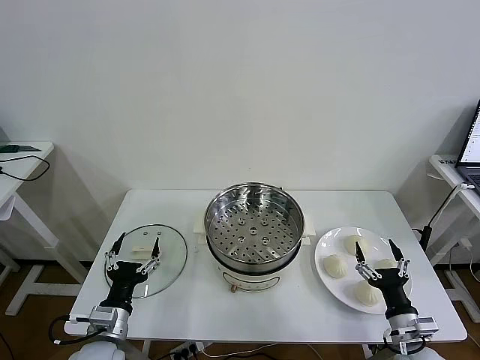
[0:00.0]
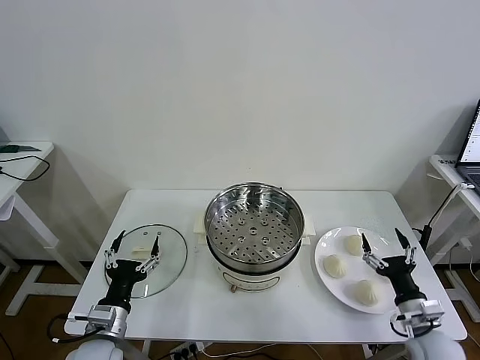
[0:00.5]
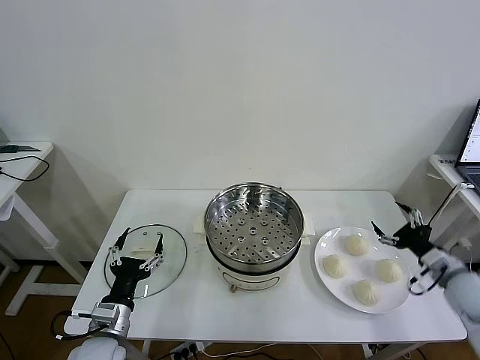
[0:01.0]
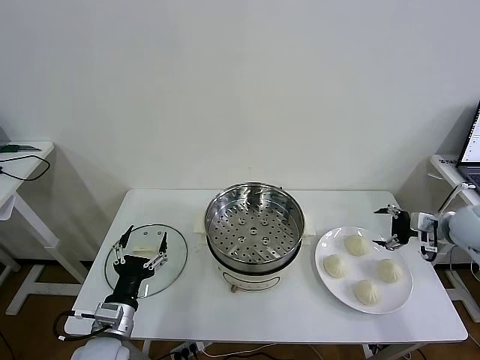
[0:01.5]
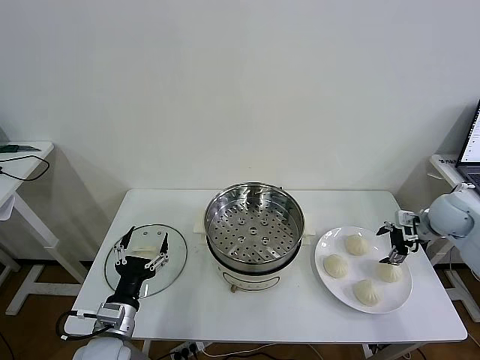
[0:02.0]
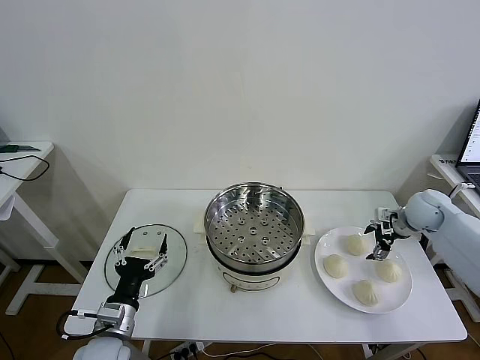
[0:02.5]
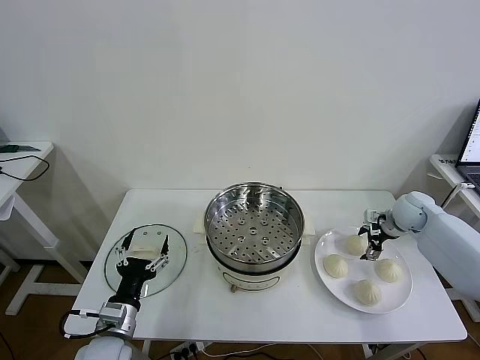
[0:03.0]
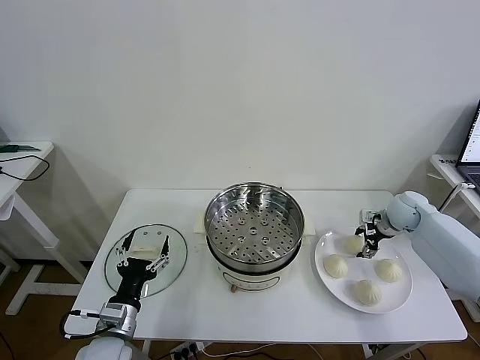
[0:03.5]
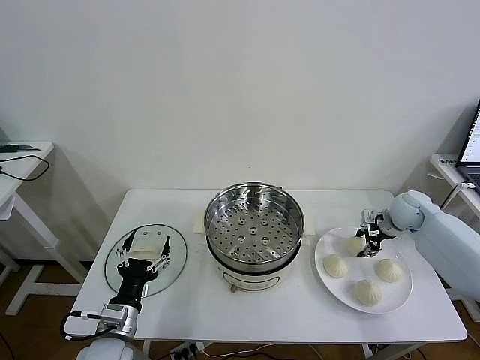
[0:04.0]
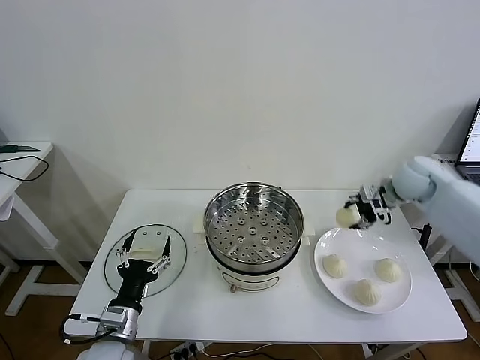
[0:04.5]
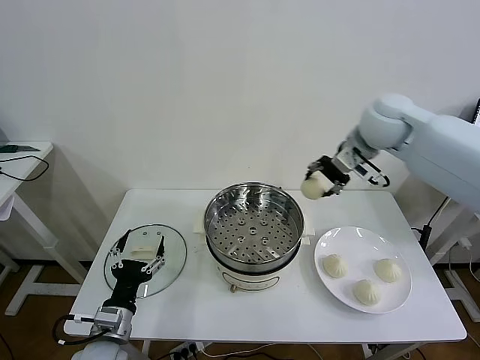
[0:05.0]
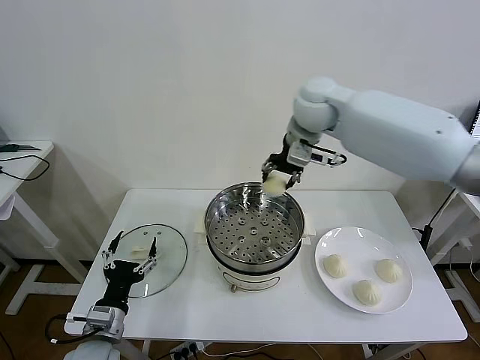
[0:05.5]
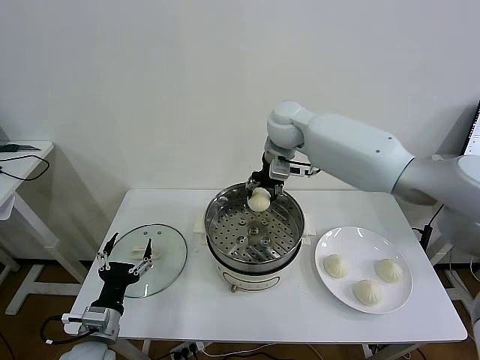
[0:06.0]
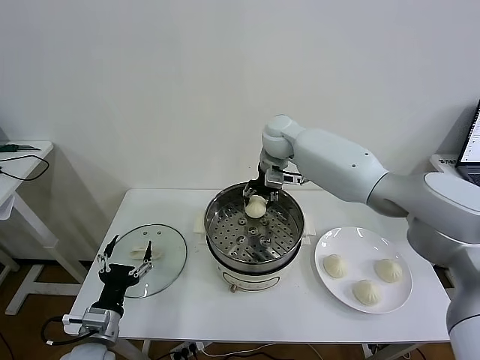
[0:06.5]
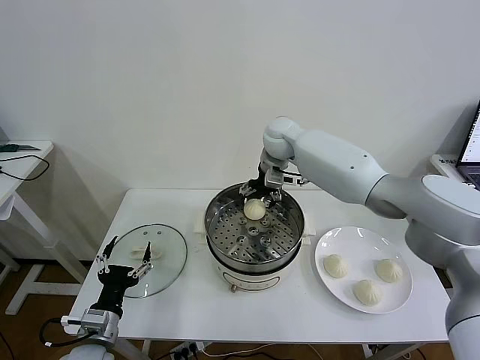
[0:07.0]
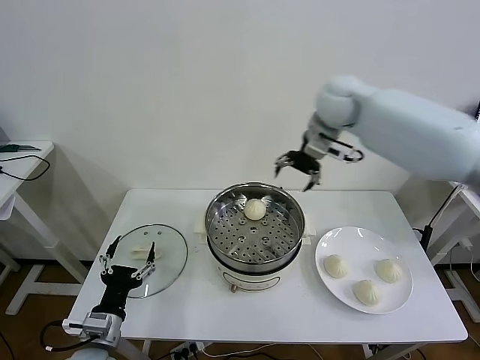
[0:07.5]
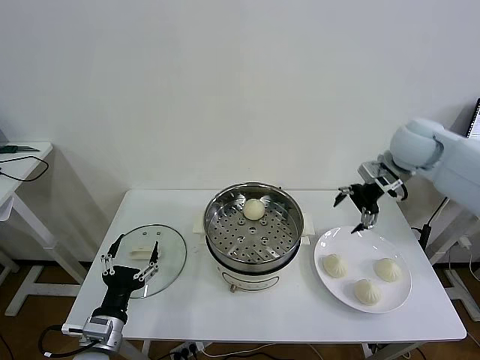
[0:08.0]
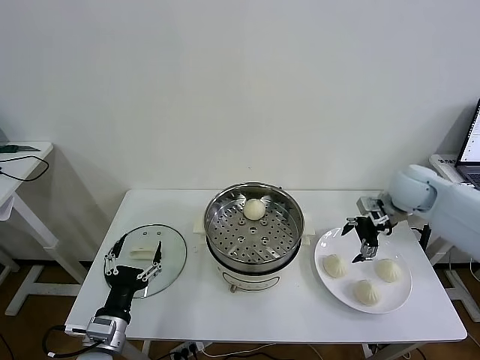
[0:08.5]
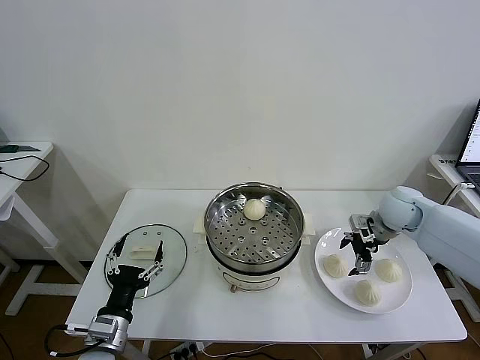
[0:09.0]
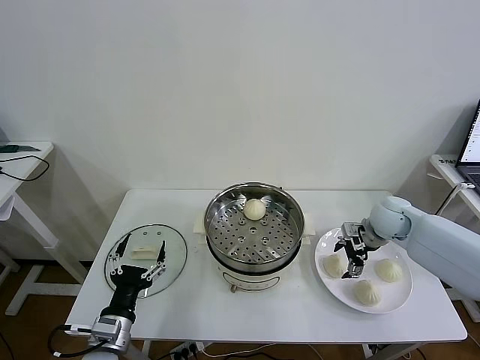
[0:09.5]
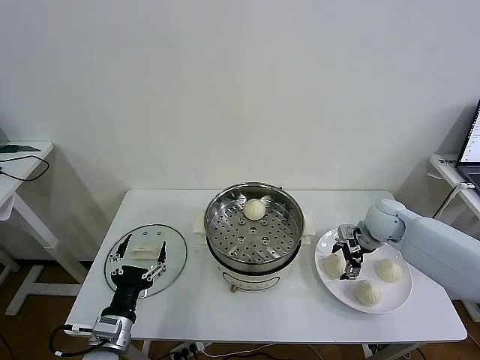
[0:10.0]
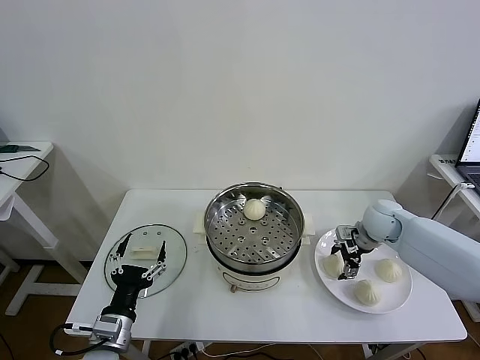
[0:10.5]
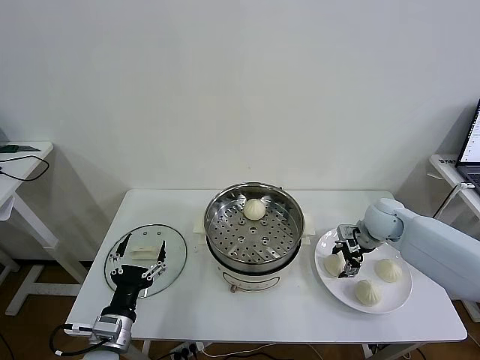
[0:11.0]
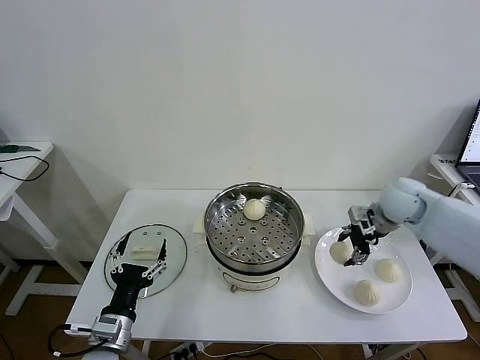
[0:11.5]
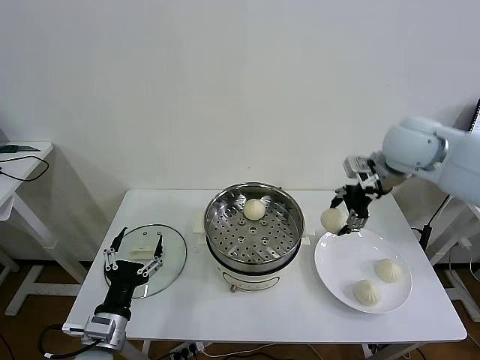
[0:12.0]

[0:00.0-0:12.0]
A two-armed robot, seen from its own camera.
Task of the whole recording: take steamed baozi put them in steamer then cover it.
Step, 0:00.0 to 0:03.5: Grasp the baozi in the plate with right gripper.
Step, 0:04.0 to 0:06.5: Place the baozi on the steamer with right gripper.
Step, 0:07.0 to 0:10.5: Grasp the baozi in the plate with right gripper.
0:02.0 to 0:04.0: The right gripper changes place by about 5 cm, and closes.
0:04.0 to 0:06.0: The right gripper travels to the left and upward by some 35 cm.
0:06.0 to 0:08.0: The right gripper travels to the right by approximately 25 cm, and opens its fingers.
0:08.0 to 0:10.0: The right gripper is displaced downward by about 20 cm.
0:10.0 to 0:12.0: The right gripper goes about 25 cm upward, and closes up.

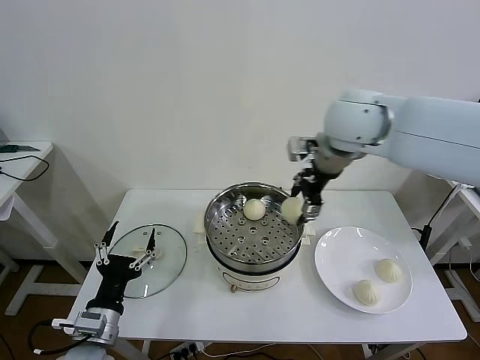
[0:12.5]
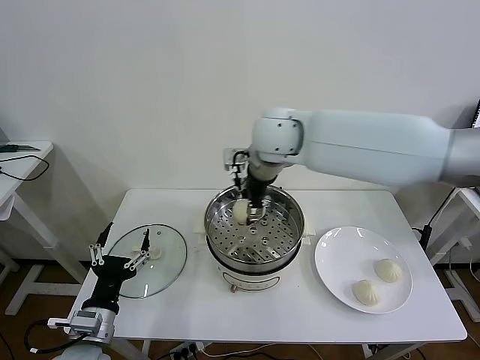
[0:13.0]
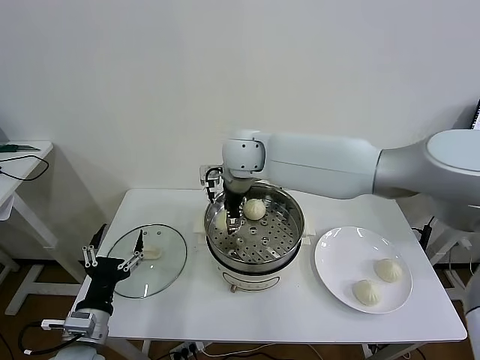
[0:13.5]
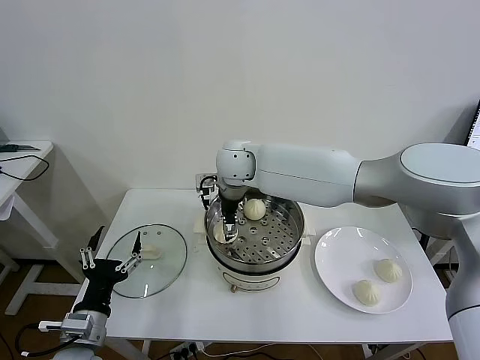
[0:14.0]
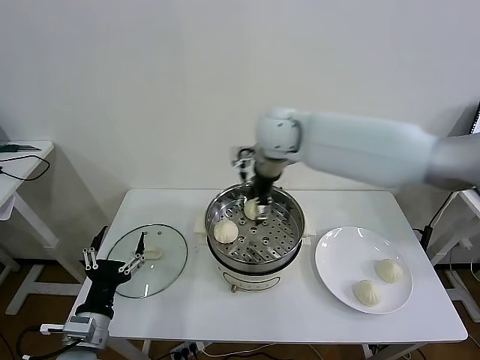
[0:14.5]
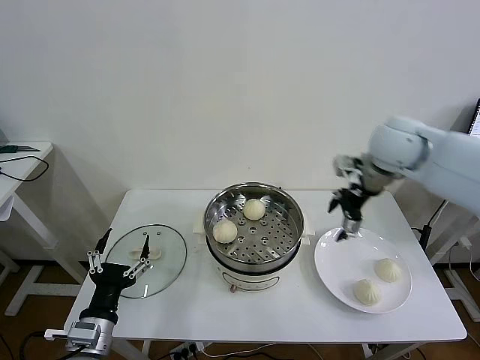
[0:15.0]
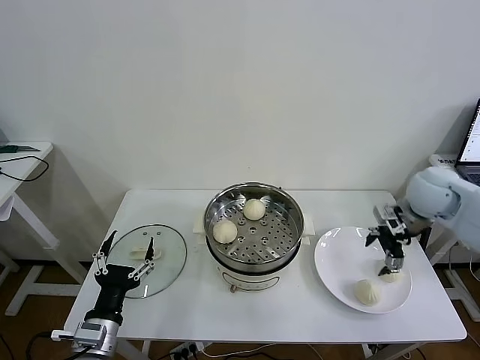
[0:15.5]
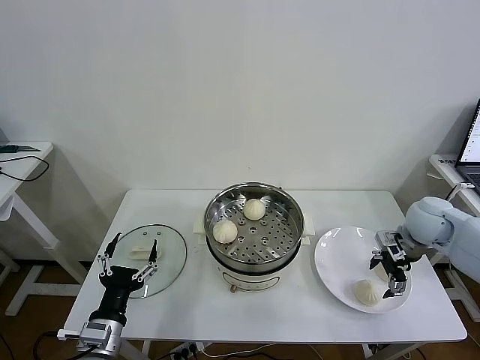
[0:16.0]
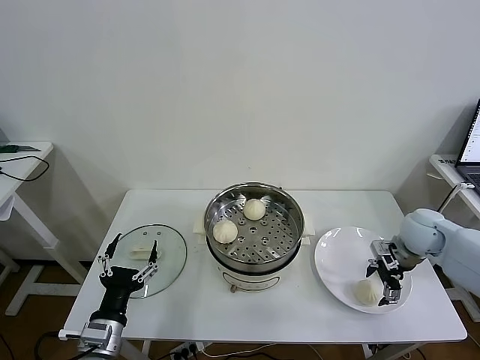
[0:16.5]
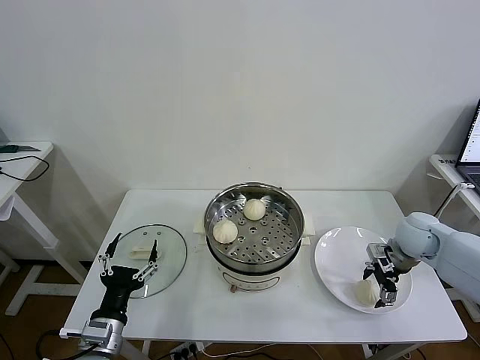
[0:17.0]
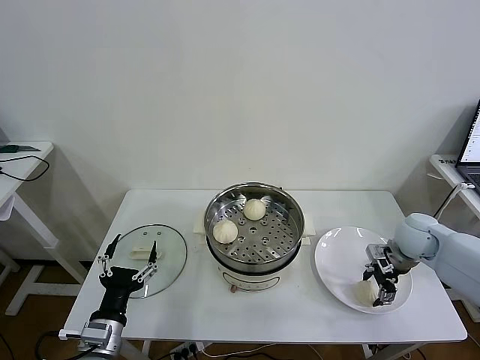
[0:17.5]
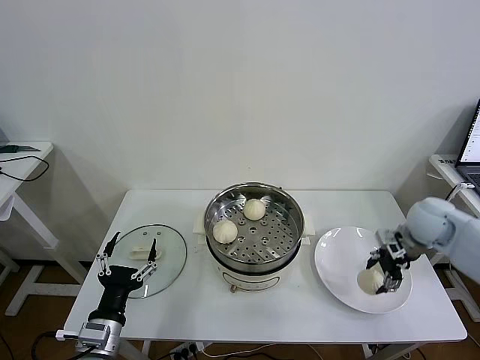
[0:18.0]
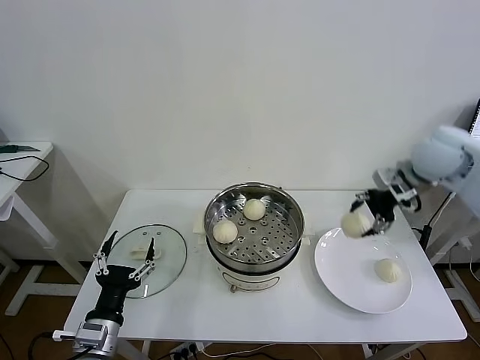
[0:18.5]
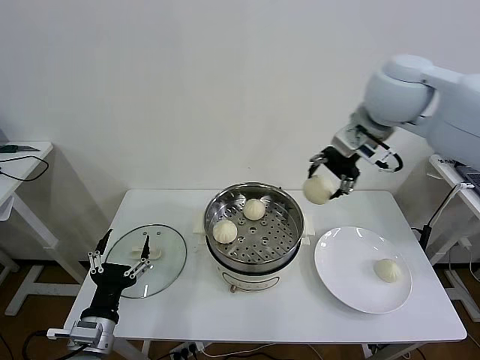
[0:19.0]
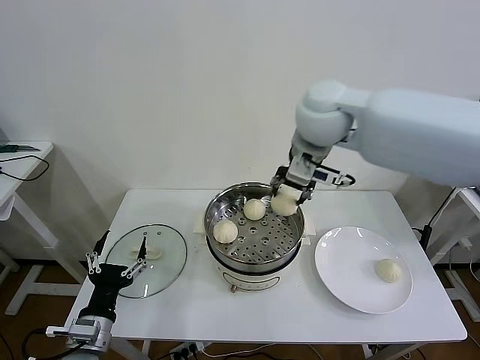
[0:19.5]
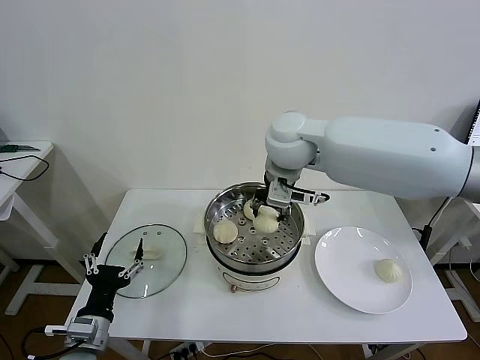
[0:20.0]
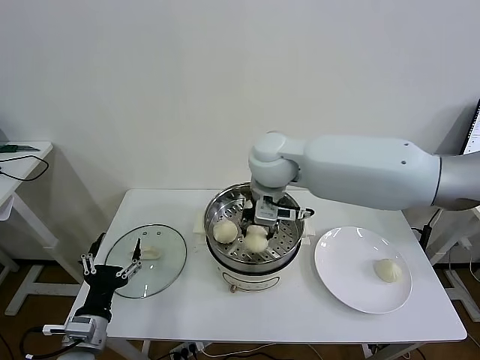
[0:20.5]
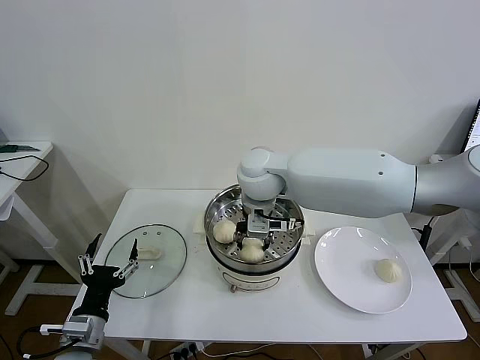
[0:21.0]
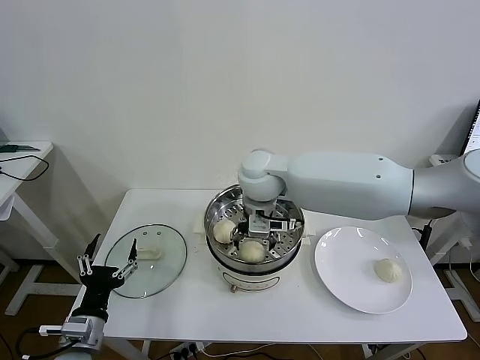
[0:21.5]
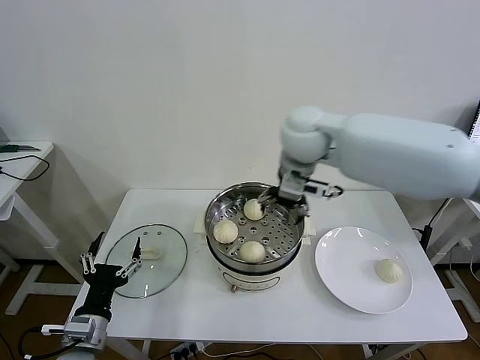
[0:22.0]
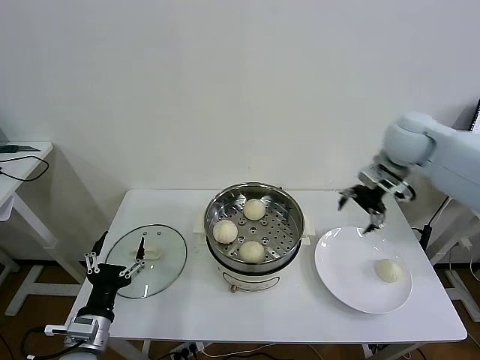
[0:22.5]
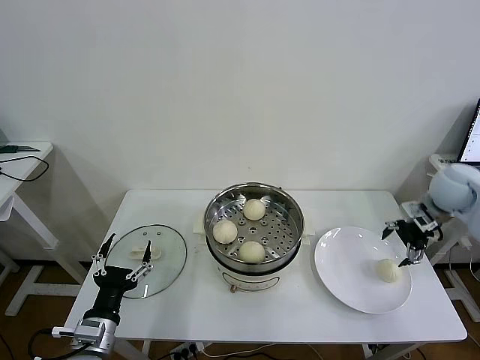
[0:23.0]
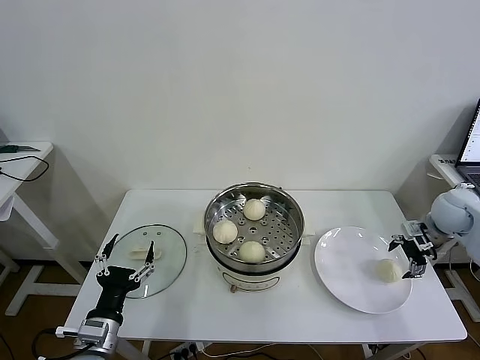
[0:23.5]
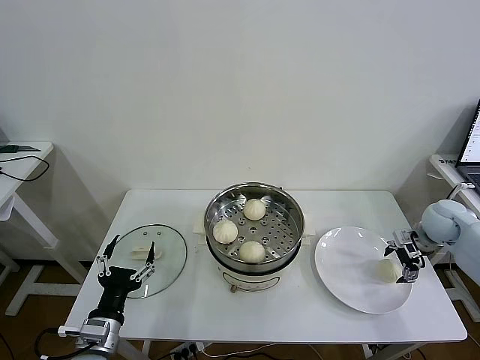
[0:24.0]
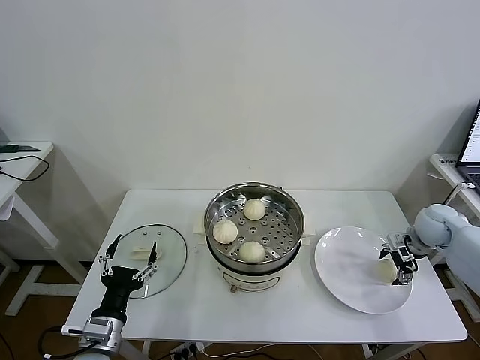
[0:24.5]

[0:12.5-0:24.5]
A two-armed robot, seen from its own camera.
Task of the whole recording: take steamed baozi put them in steamer then cover it.
Step, 0:14.5 to 0:17.5: Grasp the baozi in the plate with right gripper.
Step, 0:18.0 to 0:21.5: Place the baozi on the steamer with right gripper.
0:12.5 to 0:14.5: The right gripper moves to the left and forward, about 10 cm, and opens its fingers.
0:14.5 to 0:16.5: The right gripper goes approximately 40 cm to the right and downward.
0:16.5 to 0:18.5: The right gripper travels upward by some 20 cm, and closes its fingers.
0:18.5 to 0:20.5: The right gripper is displaced to the left by about 30 cm, and closes up.
0:20.5 to 0:22.5: The right gripper moves to the right, some 30 cm, and opens.
0:22.5 to 0:24.5: The right gripper moves downward and to the right, some 25 cm.

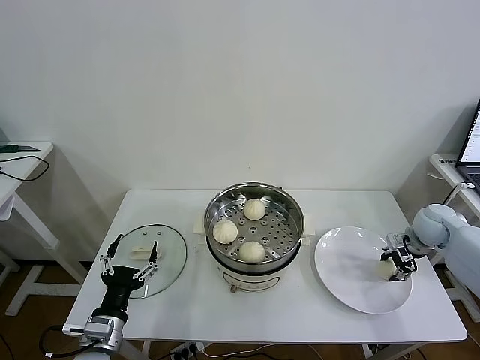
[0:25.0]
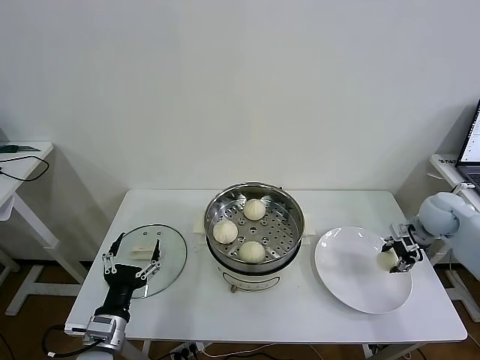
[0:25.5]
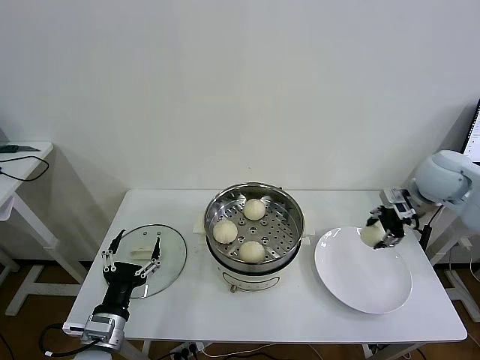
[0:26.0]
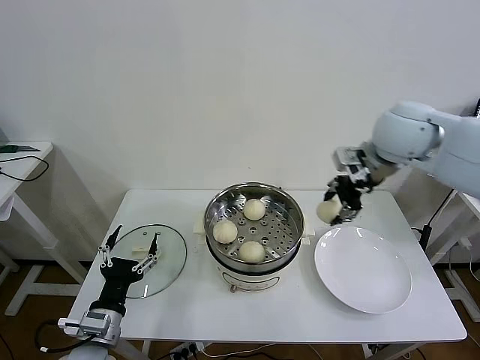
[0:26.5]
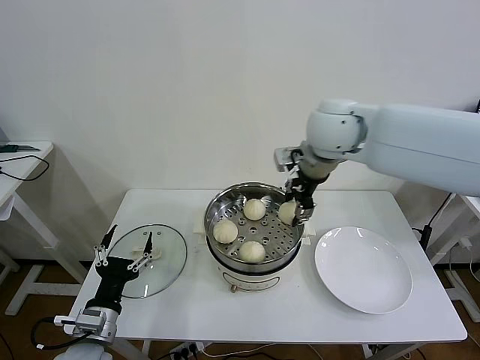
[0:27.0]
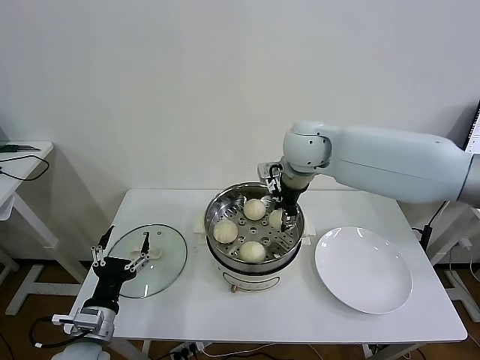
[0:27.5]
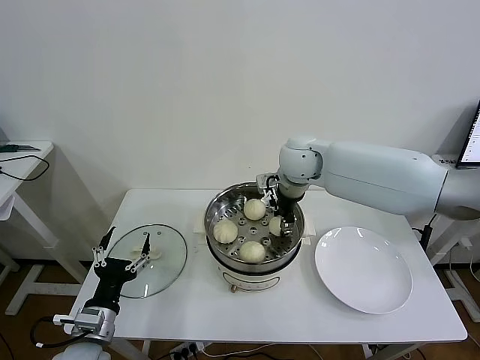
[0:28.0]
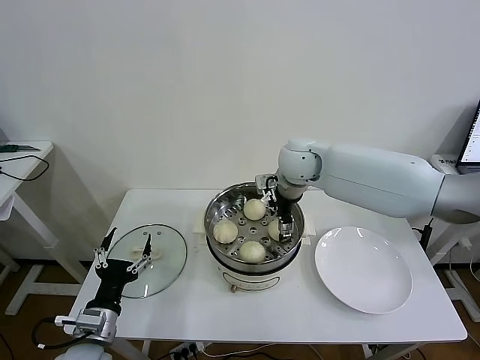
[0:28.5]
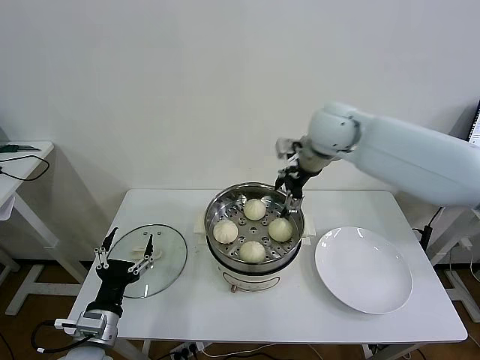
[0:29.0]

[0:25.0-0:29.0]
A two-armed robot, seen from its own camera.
Task of the whole recording: take steamed baozi put them in steamer then cover it.
Step, 0:25.5 to 0:28.0: Place the baozi on the steamer with right gripper.
0:25.0 to 0:27.0: The right gripper travels to the left and upward by approximately 40 cm.
0:27.0 to 0:29.0: The right gripper travels downward and back again, some 10 cm each way, and opens its fingers.
